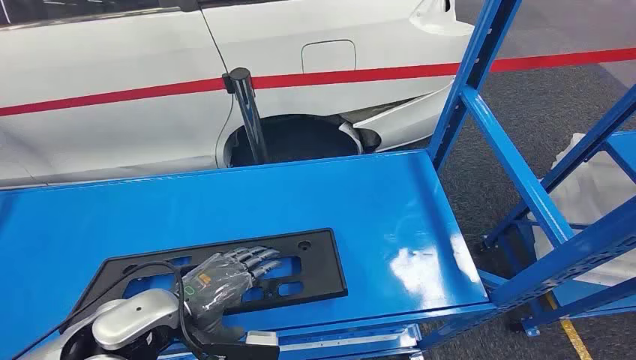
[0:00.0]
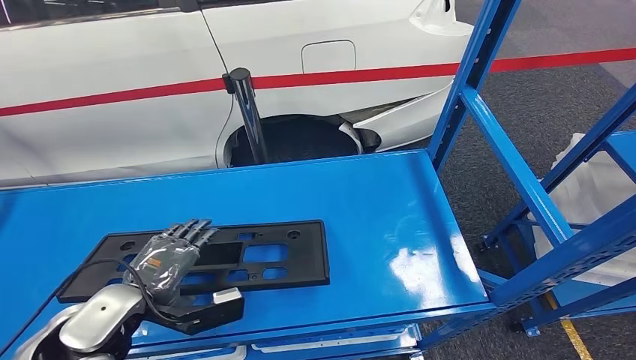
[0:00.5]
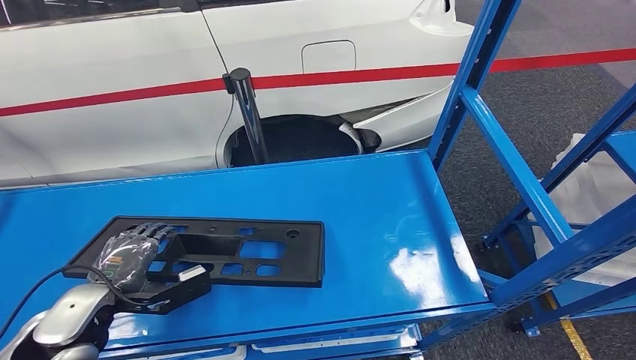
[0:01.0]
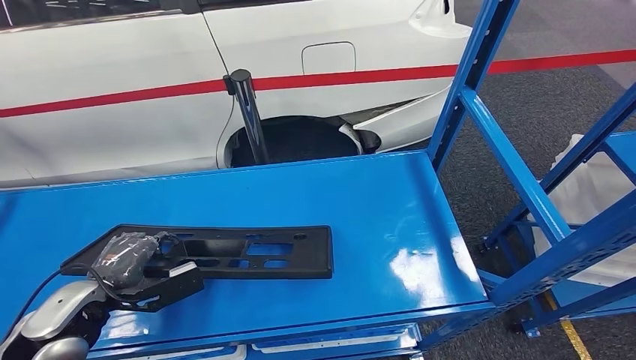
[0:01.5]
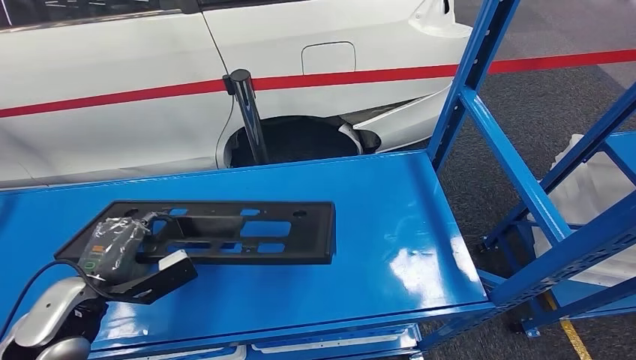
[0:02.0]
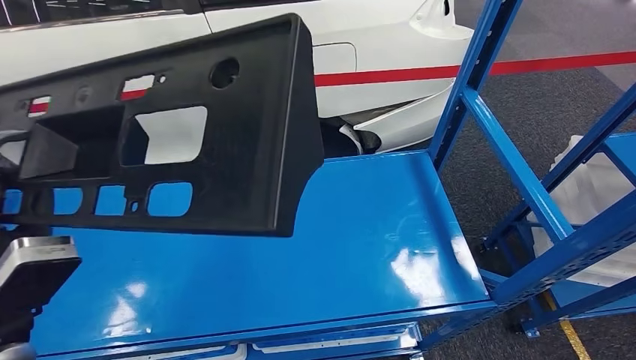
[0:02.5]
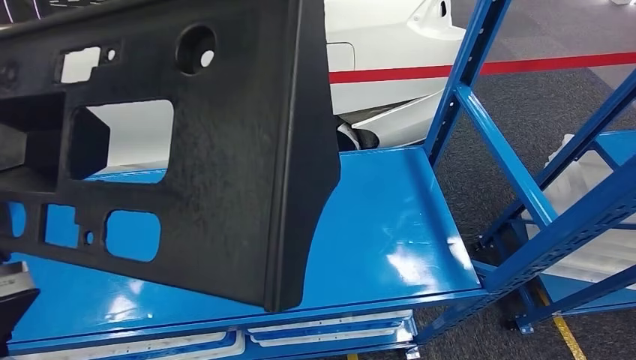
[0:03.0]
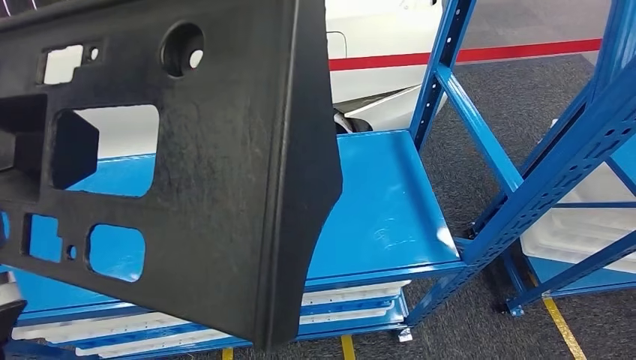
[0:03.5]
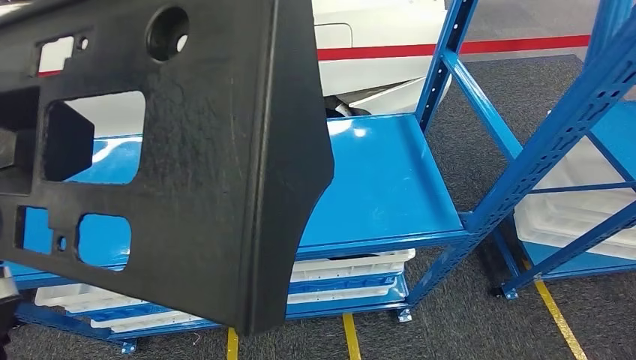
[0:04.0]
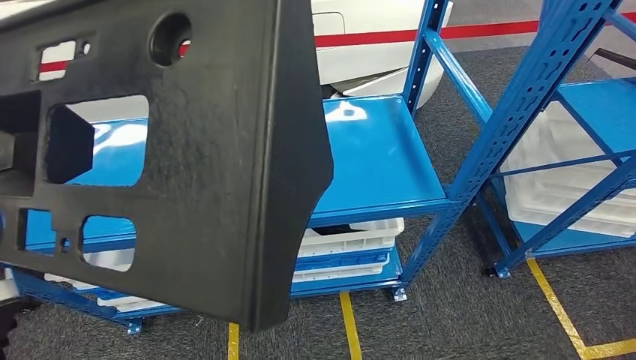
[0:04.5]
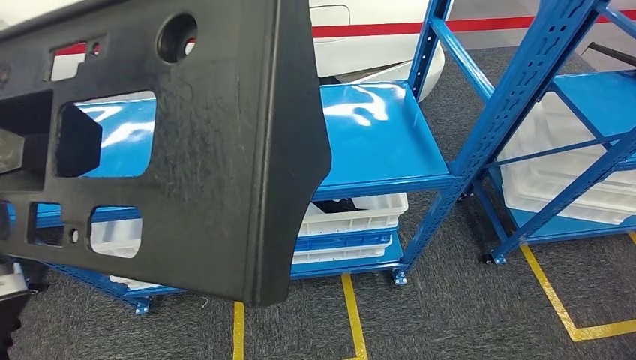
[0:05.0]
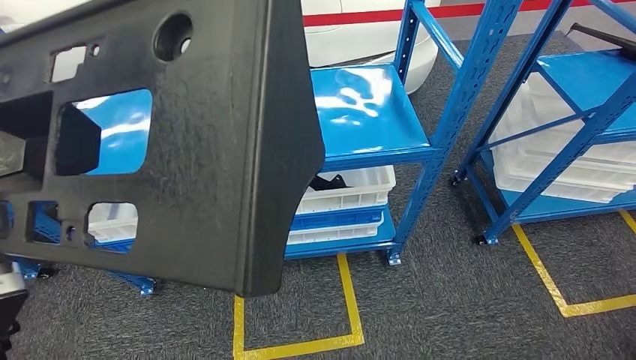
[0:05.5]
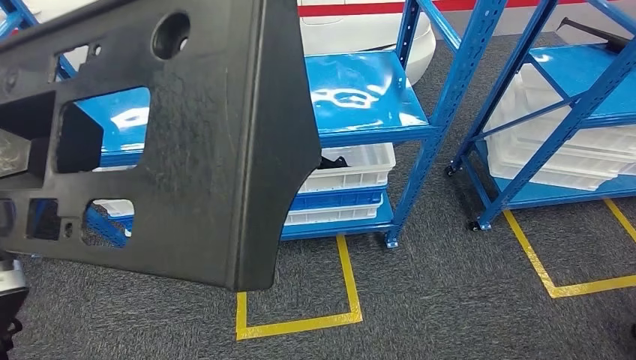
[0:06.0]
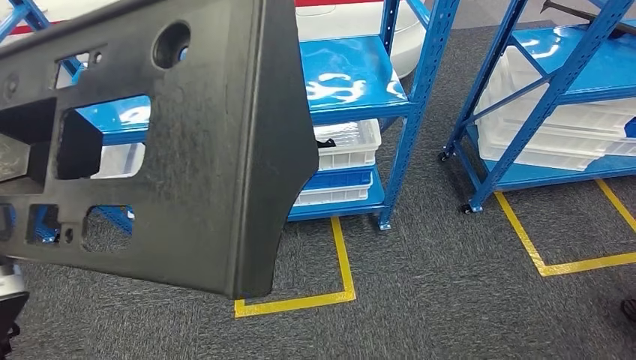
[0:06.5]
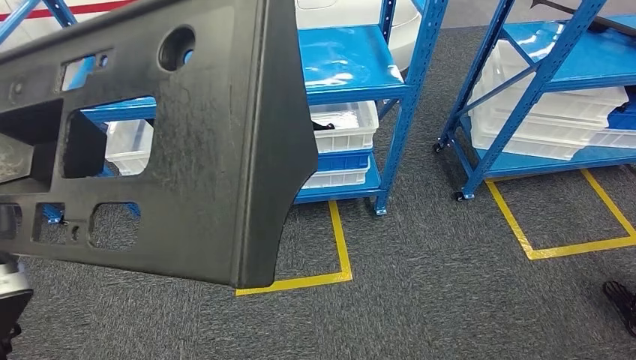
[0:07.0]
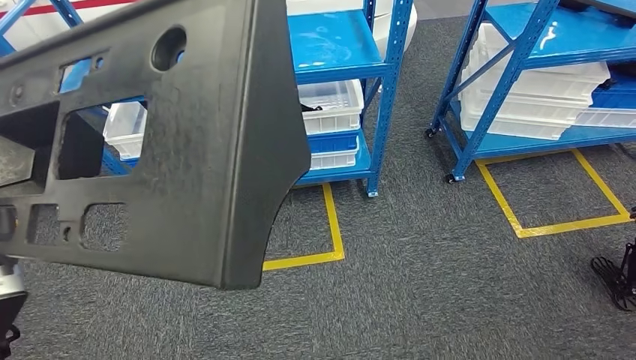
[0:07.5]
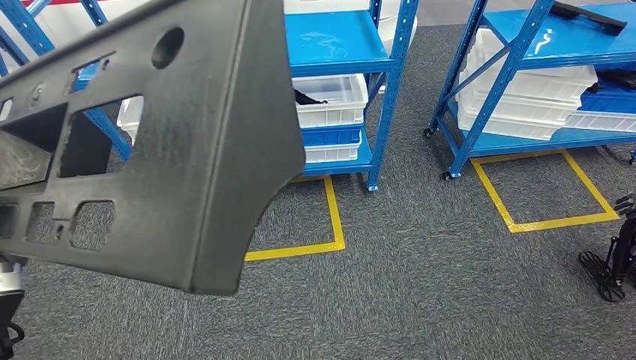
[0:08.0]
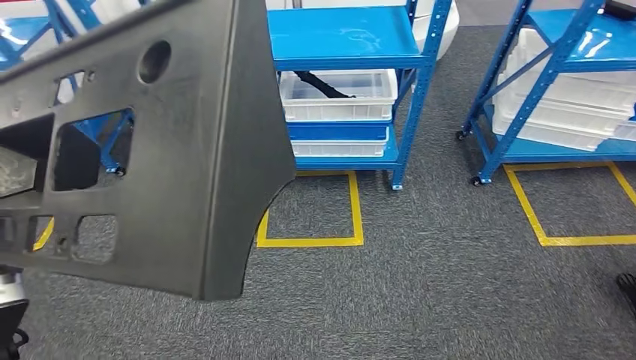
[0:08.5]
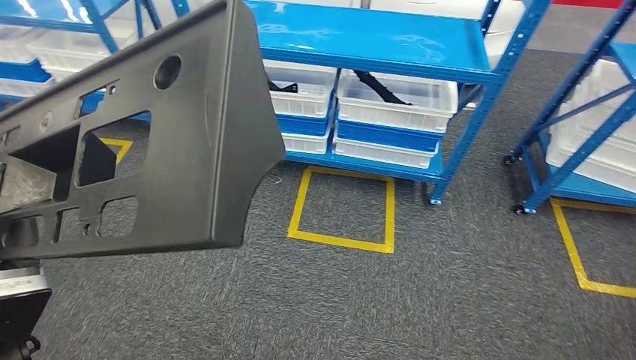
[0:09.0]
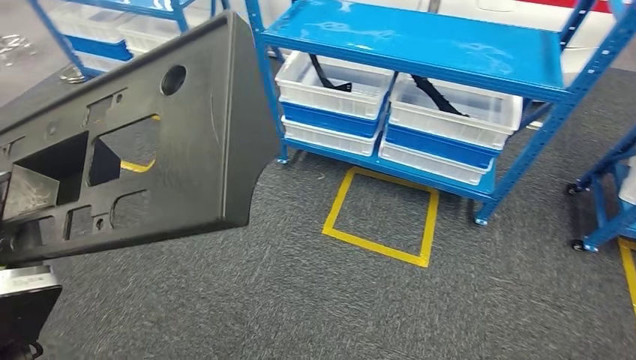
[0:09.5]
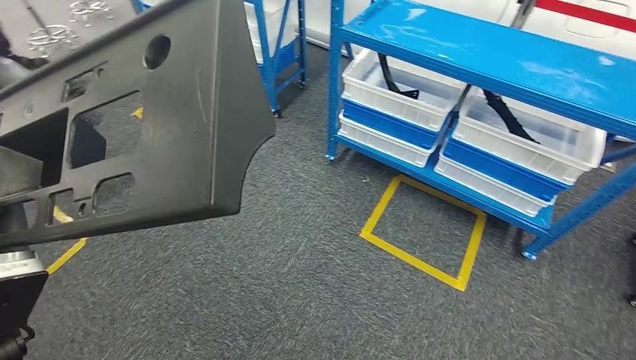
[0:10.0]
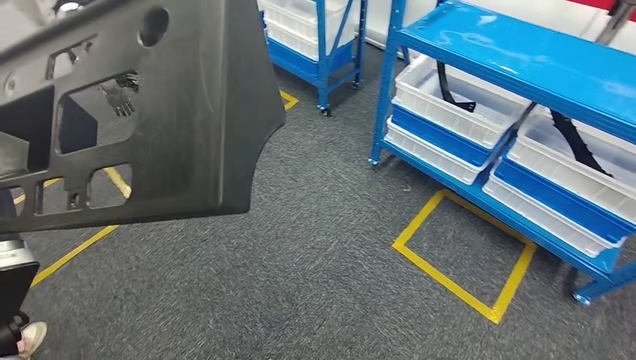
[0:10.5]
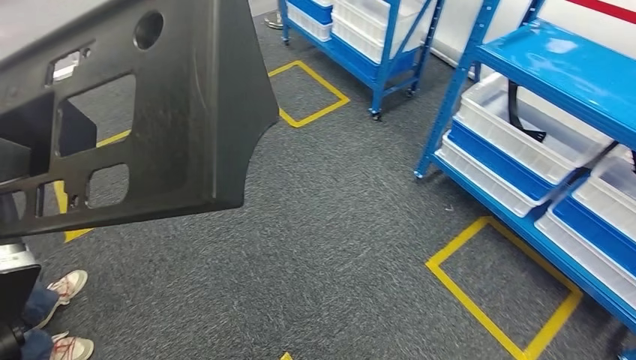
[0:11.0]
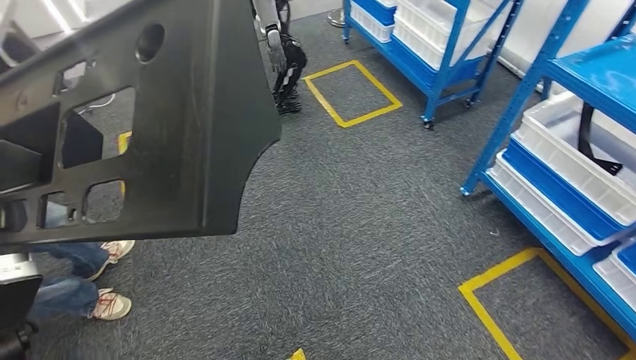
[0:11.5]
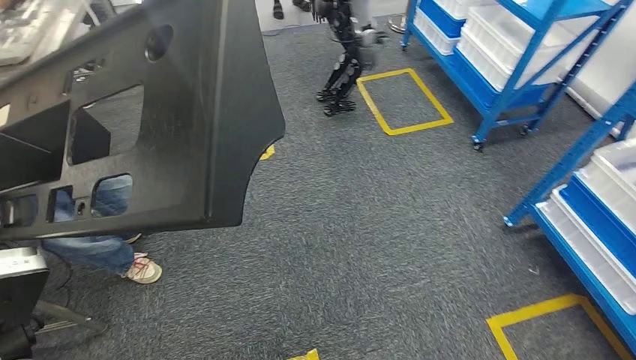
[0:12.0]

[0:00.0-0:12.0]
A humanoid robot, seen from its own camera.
Step, 0:00.0 to 0:05.0: Pick up the large material from the shelf.

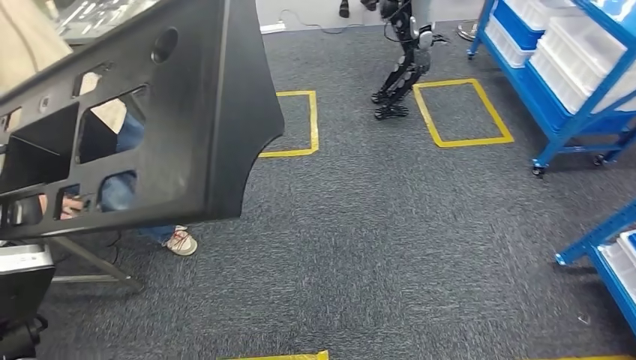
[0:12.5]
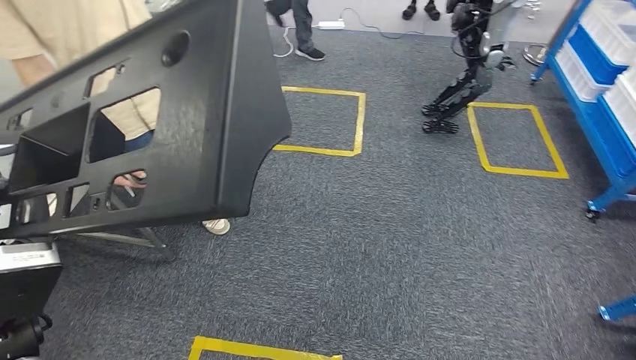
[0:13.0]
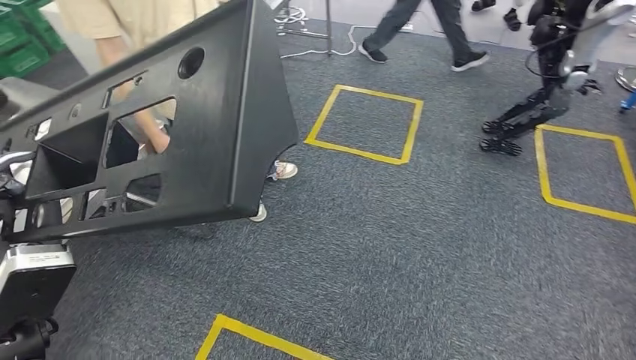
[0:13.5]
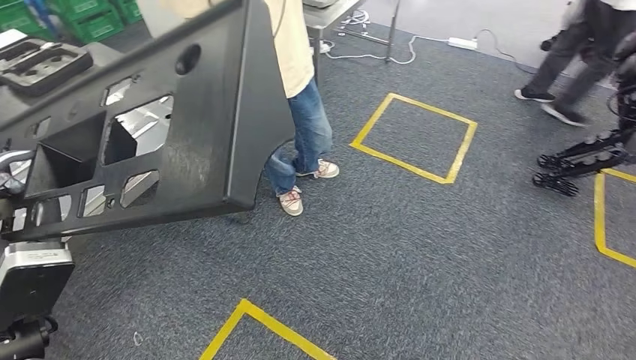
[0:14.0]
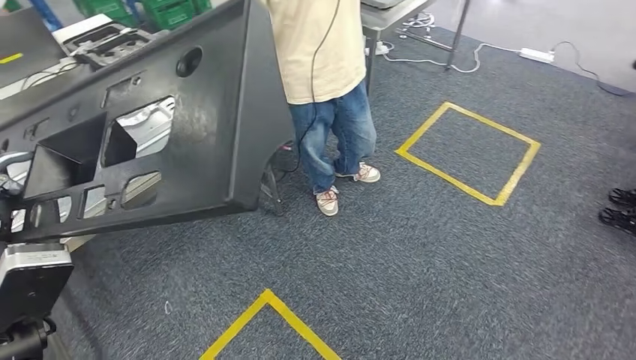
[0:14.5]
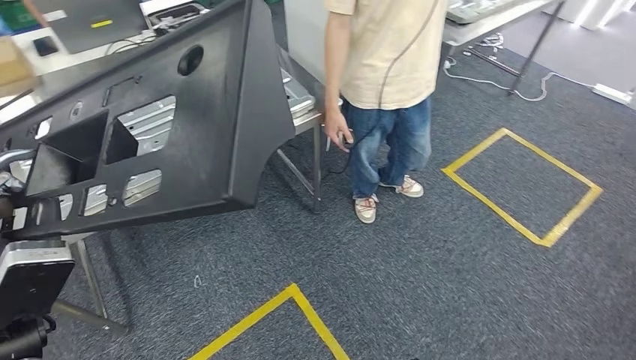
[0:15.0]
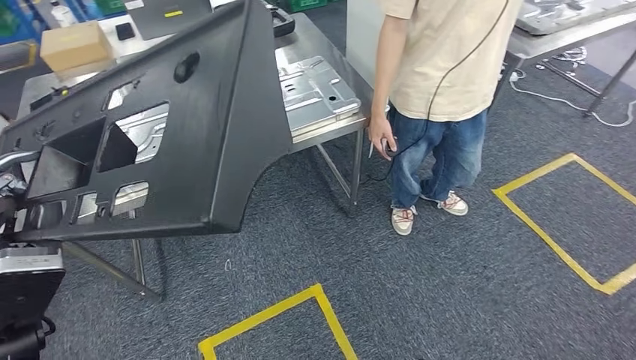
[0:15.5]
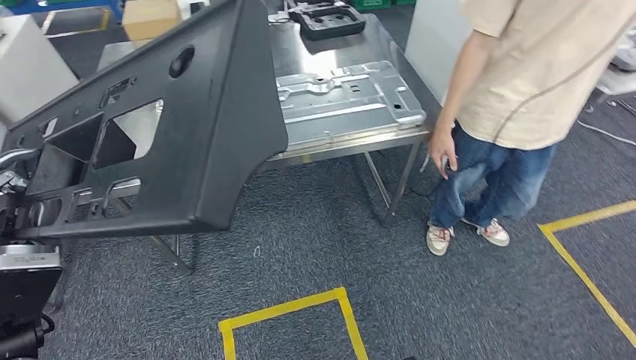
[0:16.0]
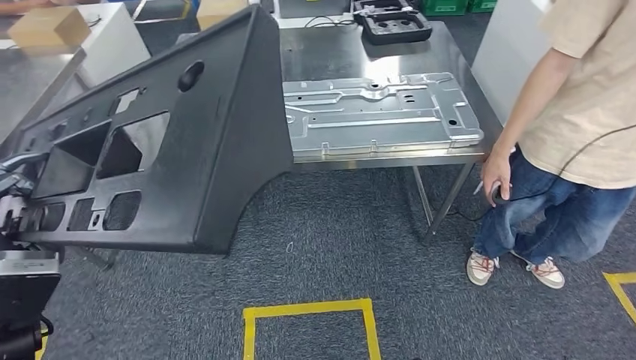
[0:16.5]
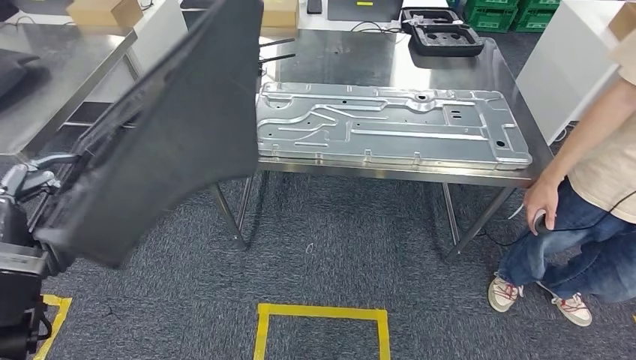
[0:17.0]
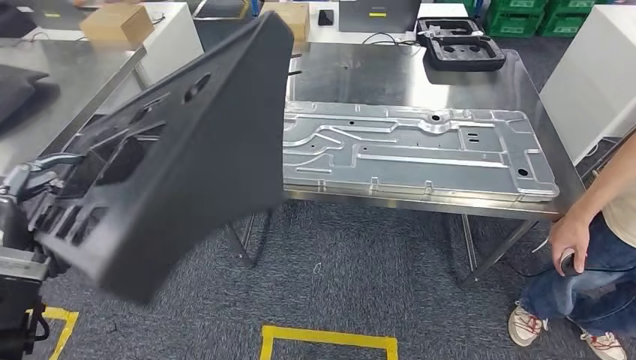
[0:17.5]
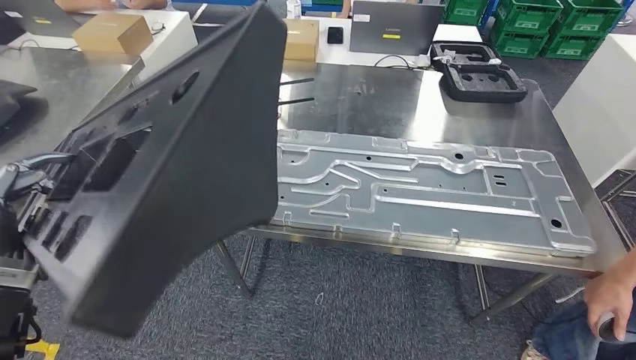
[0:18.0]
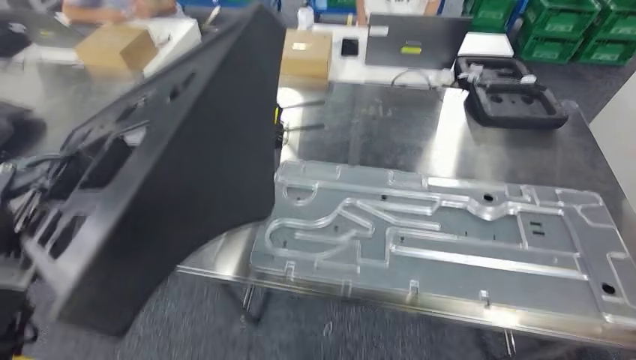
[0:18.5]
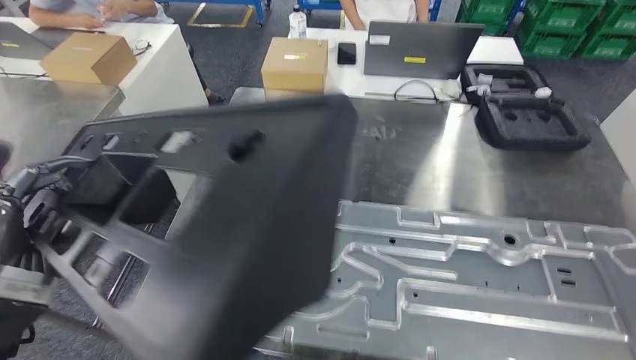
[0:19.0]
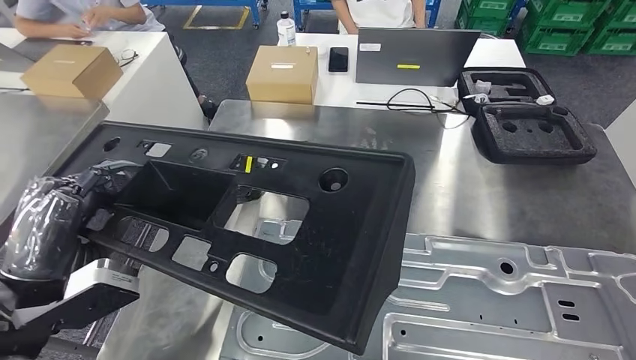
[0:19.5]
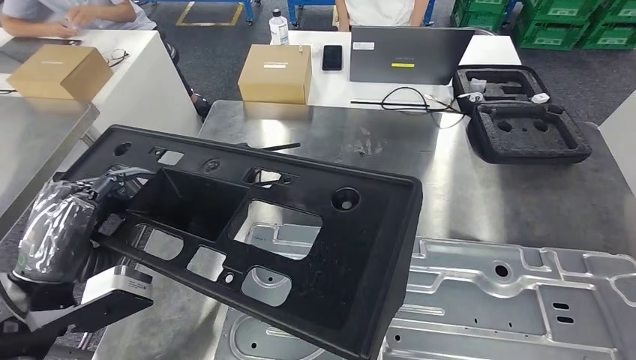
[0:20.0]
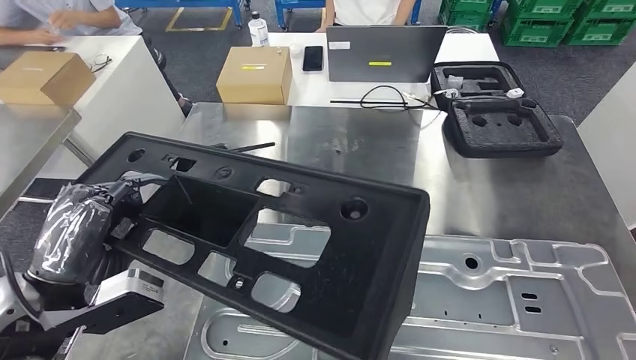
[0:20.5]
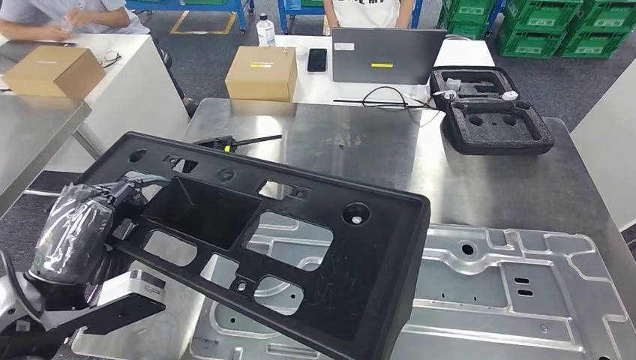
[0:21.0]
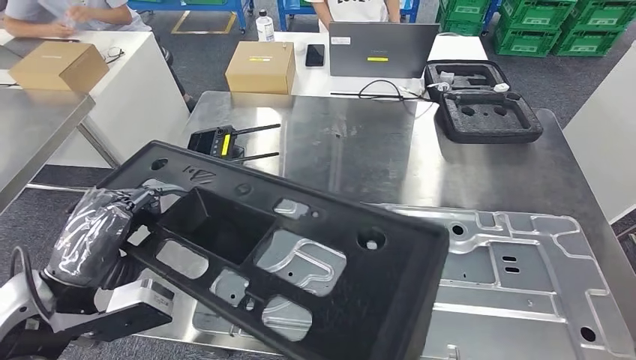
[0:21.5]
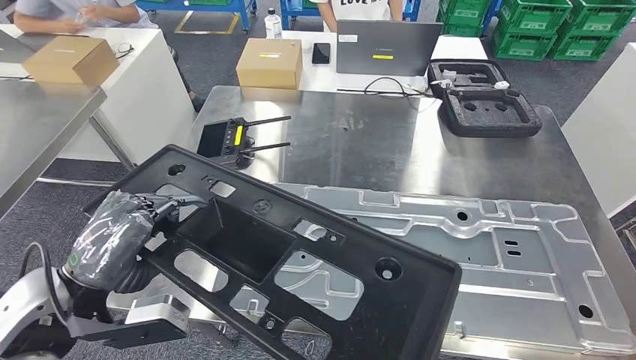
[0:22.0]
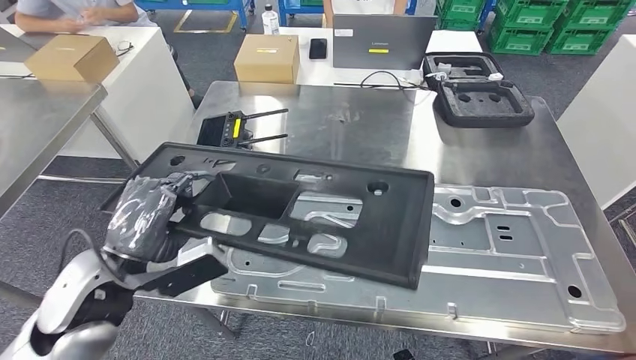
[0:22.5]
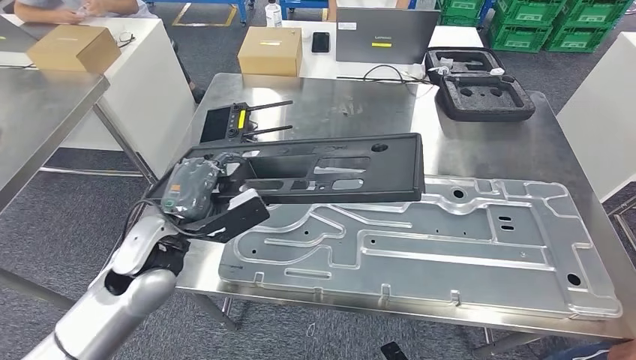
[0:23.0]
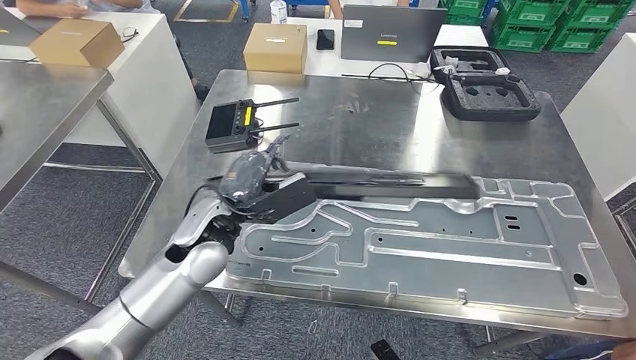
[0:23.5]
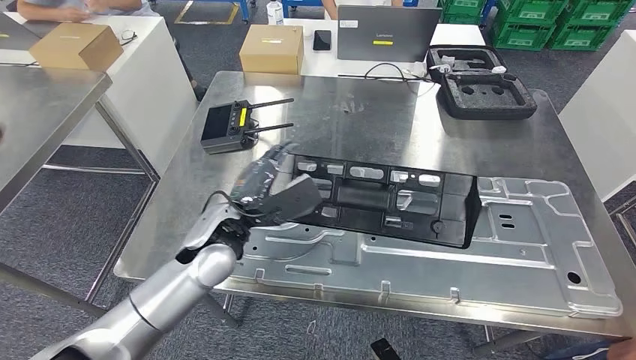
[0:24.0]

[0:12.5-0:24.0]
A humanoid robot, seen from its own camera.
Step, 0:12.5 to 0:18.5: Move the large material to the workbench.
